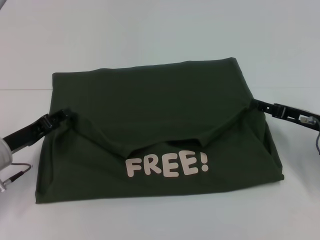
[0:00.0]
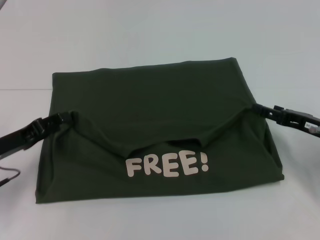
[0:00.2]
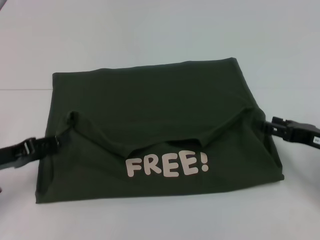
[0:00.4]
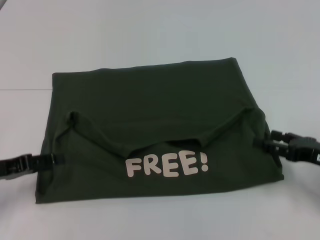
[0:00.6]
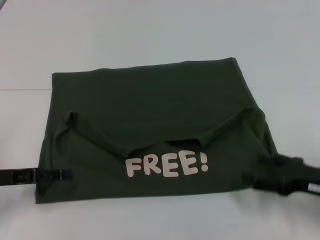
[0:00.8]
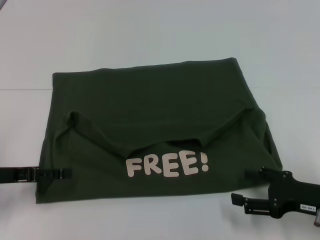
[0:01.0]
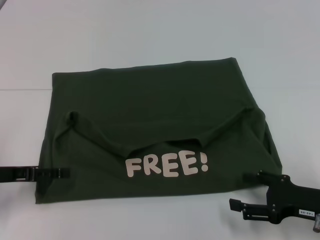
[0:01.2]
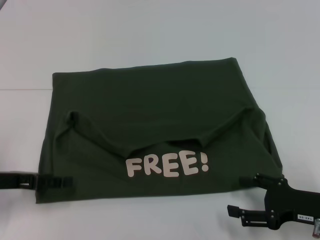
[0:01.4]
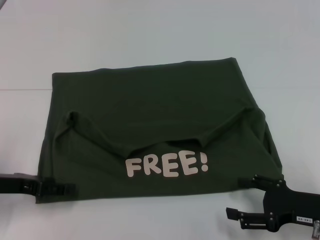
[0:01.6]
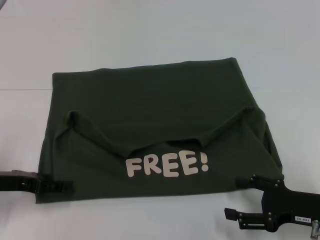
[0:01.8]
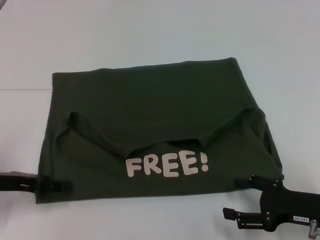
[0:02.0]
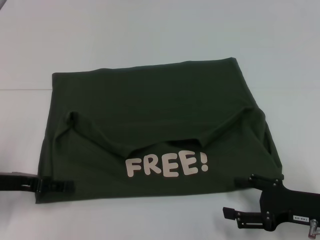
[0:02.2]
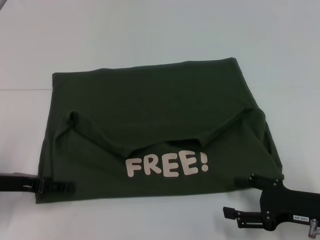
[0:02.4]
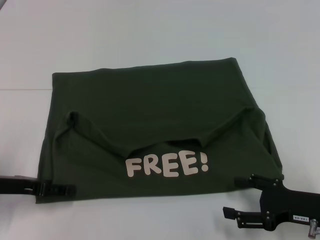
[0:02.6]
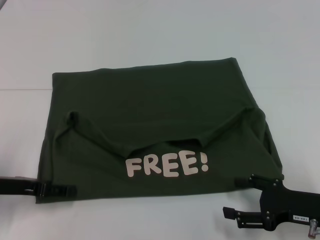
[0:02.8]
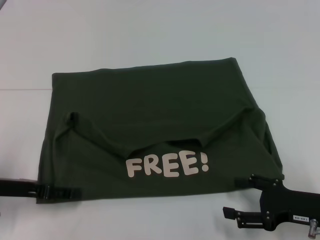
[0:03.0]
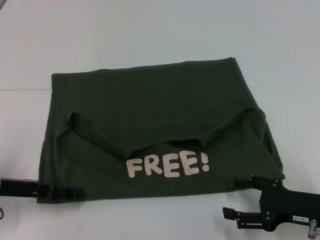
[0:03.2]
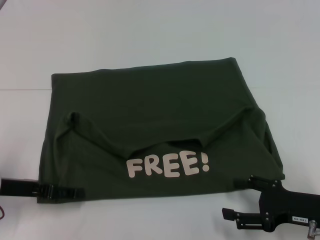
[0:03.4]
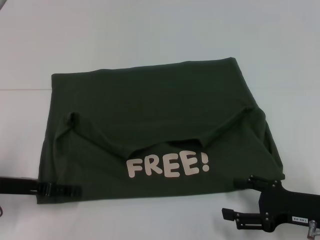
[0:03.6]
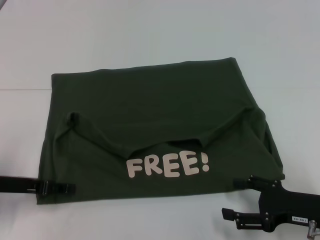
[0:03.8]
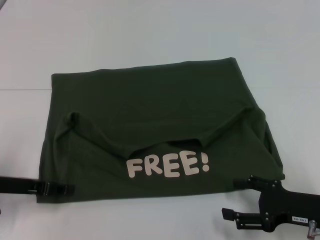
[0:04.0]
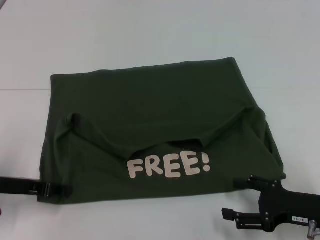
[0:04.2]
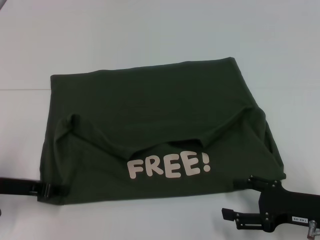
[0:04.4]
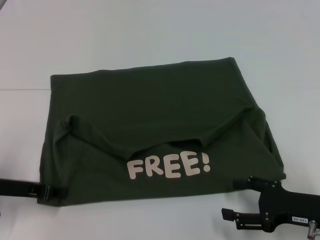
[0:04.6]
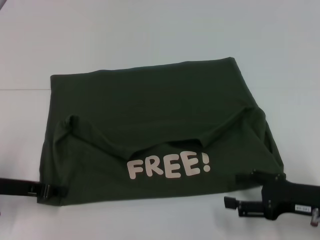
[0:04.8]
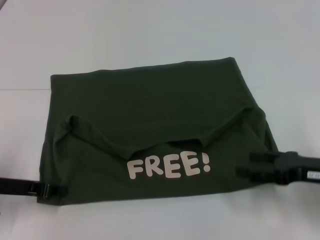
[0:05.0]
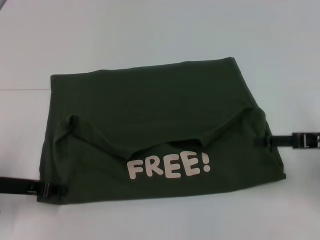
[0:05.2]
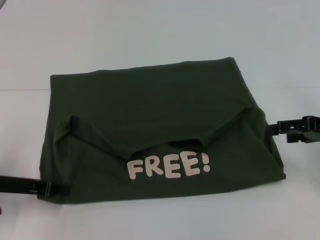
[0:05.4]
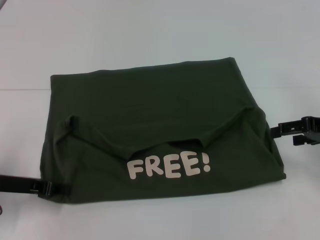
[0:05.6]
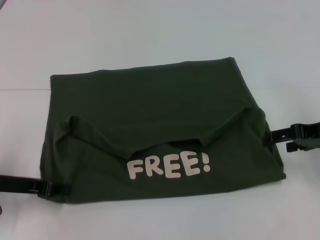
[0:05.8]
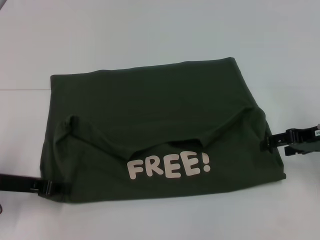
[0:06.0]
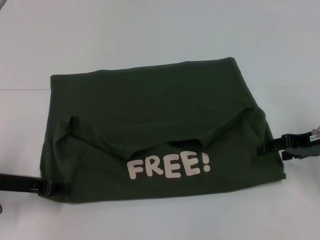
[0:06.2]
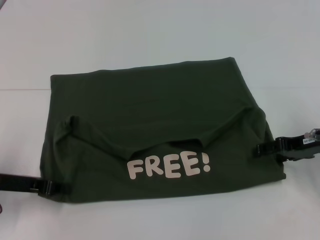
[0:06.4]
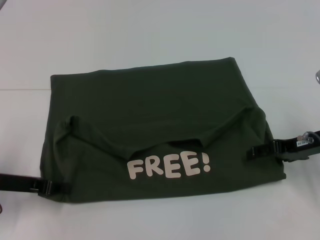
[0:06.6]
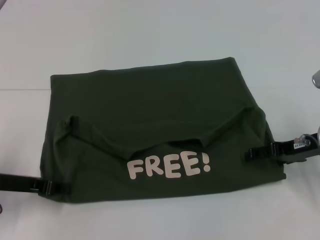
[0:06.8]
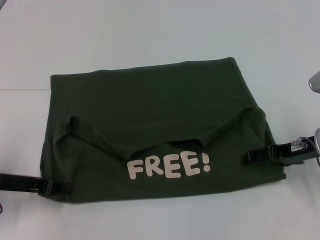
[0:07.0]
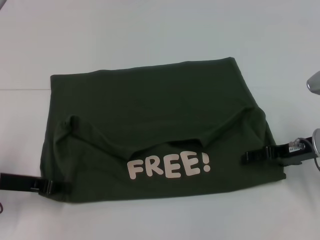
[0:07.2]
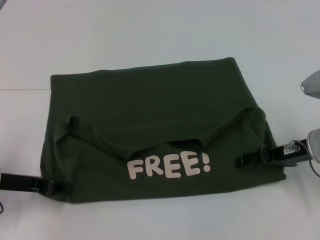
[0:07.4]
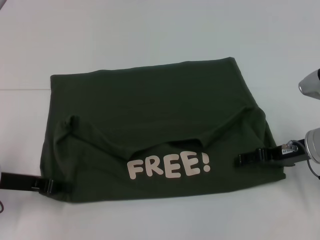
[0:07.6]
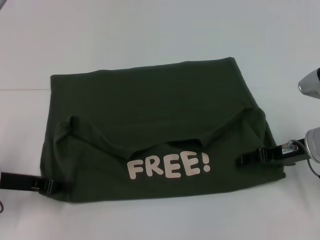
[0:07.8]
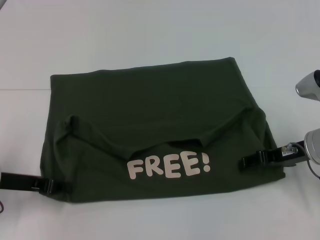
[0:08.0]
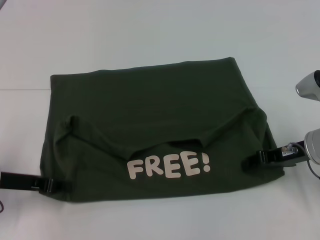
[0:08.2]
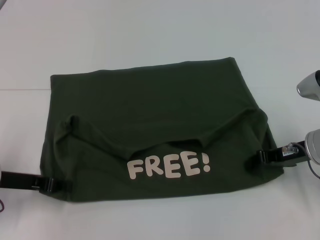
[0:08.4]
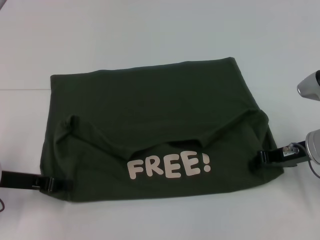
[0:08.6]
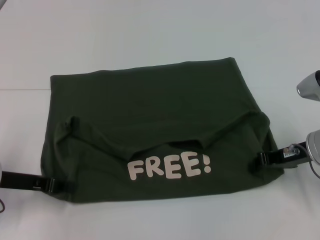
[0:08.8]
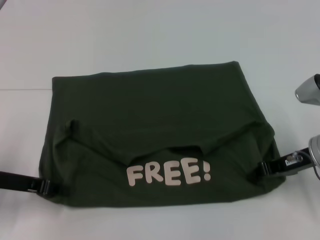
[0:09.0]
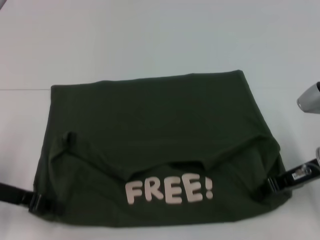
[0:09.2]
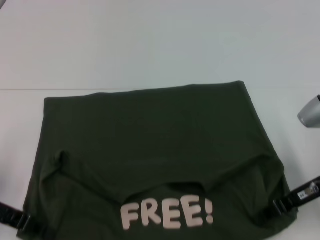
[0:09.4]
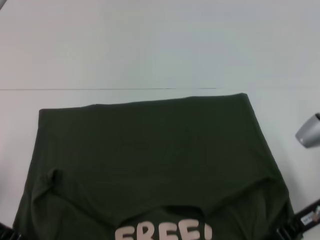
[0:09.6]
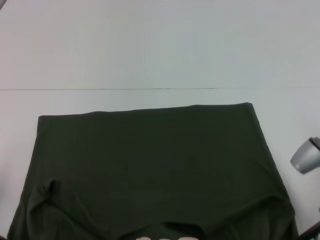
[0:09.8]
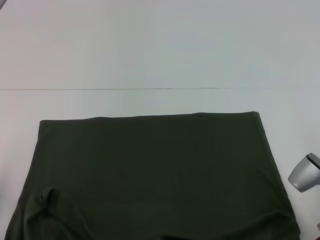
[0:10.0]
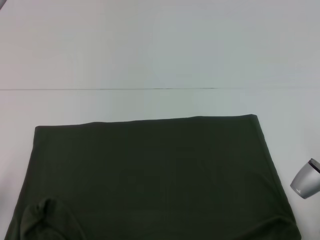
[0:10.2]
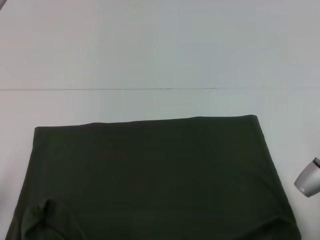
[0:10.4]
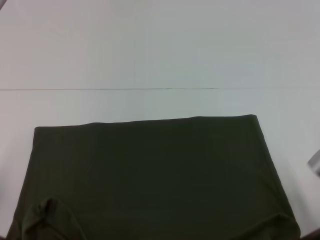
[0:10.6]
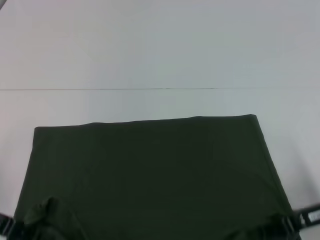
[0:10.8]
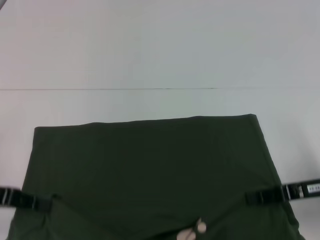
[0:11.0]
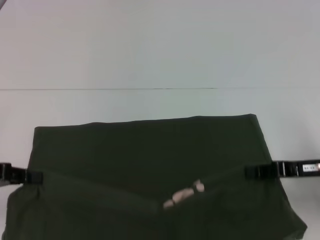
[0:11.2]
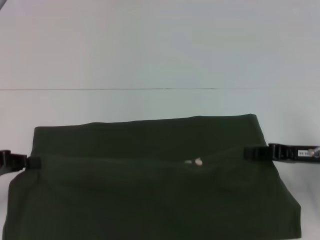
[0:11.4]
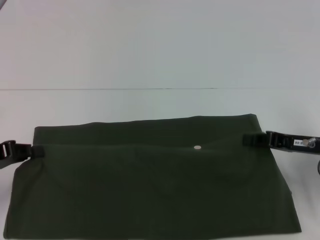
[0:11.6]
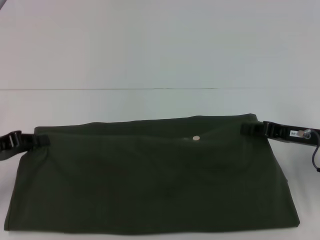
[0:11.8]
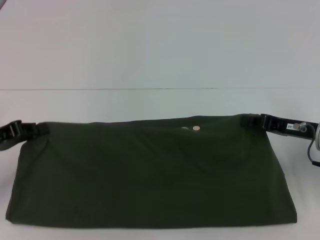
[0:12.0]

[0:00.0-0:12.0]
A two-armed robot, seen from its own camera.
Step, 0:00.8 to 0:09.8: Pull the clothes with your left hand.
Step, 0:00.8 to 0:09.8: Pull the clothes with your right hand.
0:00.0 to 0:01.6: The left gripper opens its fingers; the right gripper heads backward, covering roughly 10 cm.
0:01.6 to 0:03.0: The grippers stay close to where they were, moving slightly.
0:03.0 to 0:04.4: The left gripper closes up.
0:04.4 to 0:06.0: The right gripper shifts some 15 cm forward and upward.
0:06.0 to 0:07.6: The right gripper moves some 5 cm.
0:07.6 to 0:09.0: The right gripper closes its fingers.
0:09.0 to 0:10.4: The right gripper heads backward, covering some 10 cm, while the left gripper goes roughly 5 cm backward.
0:10.4 to 0:12.0: The left gripper goes approximately 5 cm forward. Meanwhile the right gripper moves forward, roughly 10 cm.

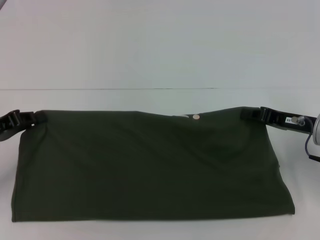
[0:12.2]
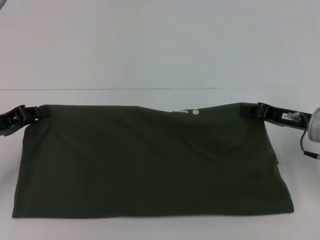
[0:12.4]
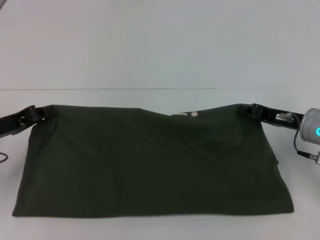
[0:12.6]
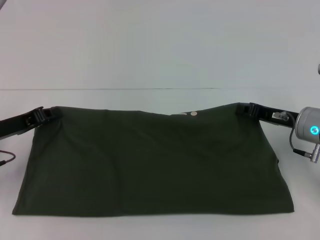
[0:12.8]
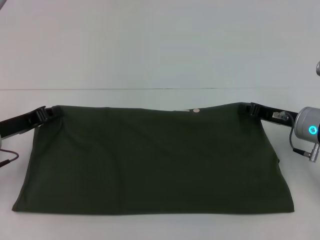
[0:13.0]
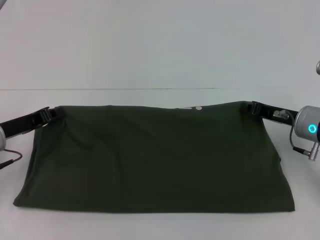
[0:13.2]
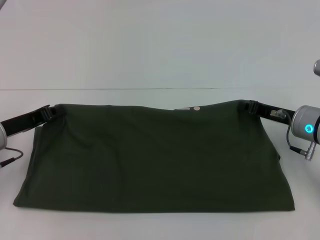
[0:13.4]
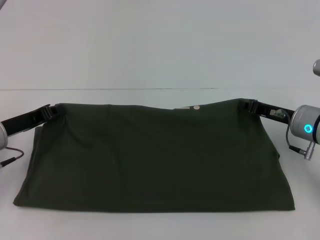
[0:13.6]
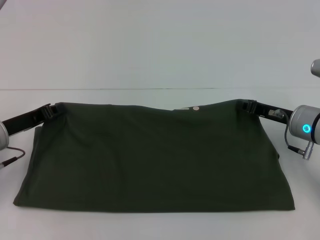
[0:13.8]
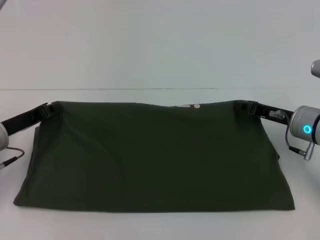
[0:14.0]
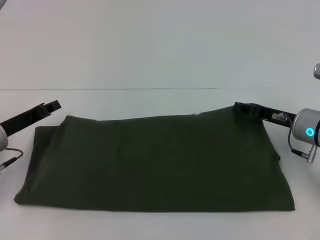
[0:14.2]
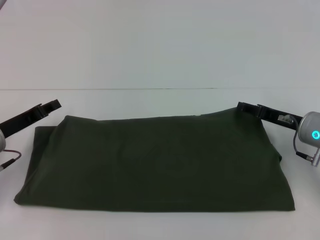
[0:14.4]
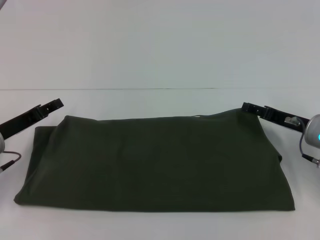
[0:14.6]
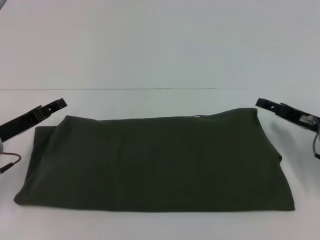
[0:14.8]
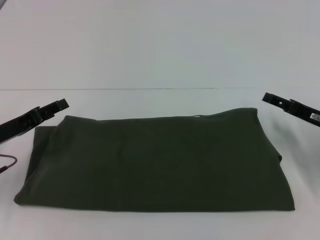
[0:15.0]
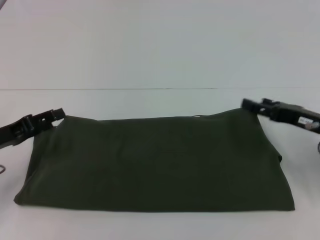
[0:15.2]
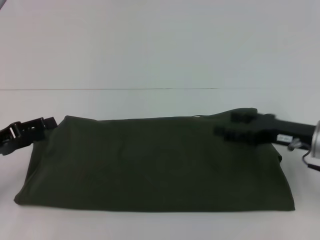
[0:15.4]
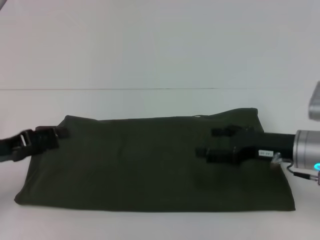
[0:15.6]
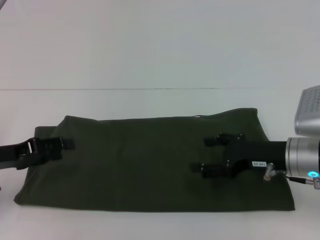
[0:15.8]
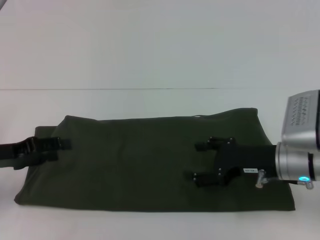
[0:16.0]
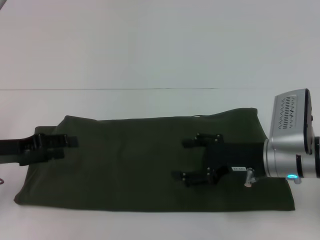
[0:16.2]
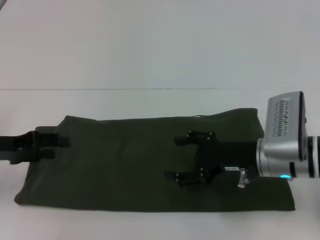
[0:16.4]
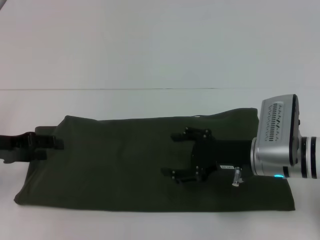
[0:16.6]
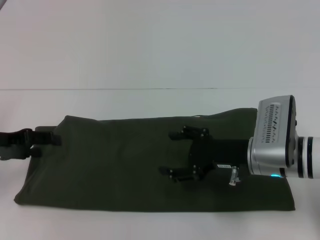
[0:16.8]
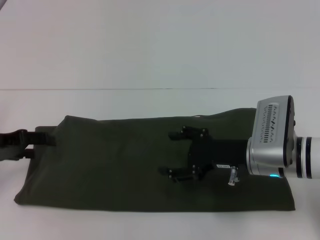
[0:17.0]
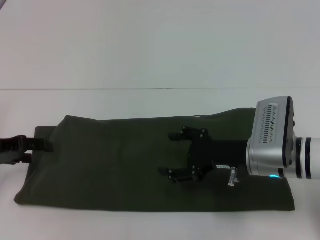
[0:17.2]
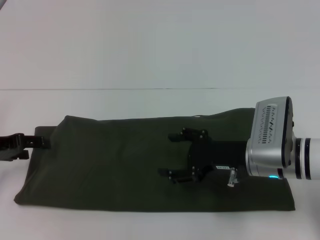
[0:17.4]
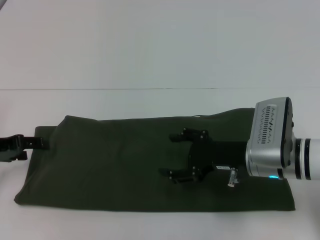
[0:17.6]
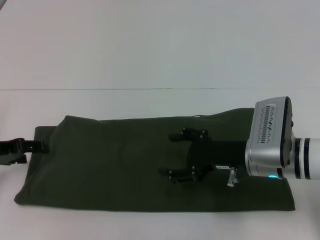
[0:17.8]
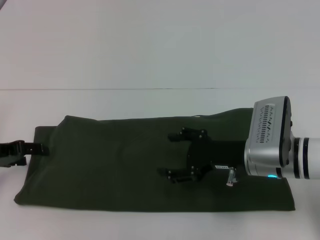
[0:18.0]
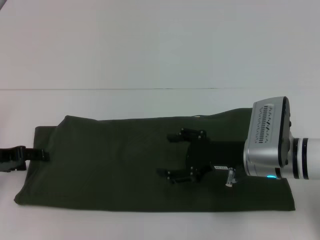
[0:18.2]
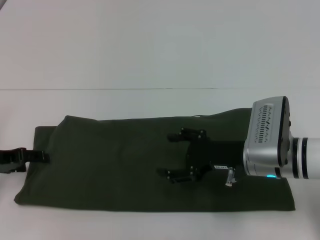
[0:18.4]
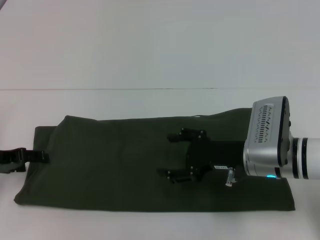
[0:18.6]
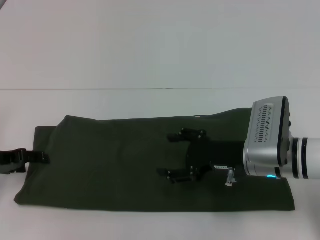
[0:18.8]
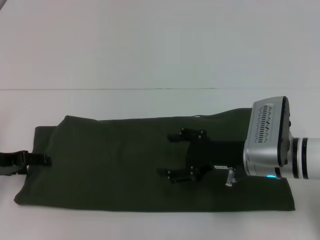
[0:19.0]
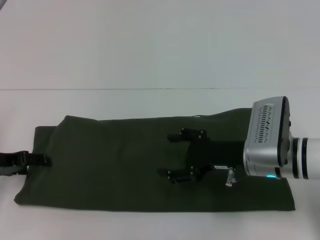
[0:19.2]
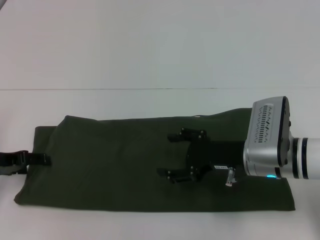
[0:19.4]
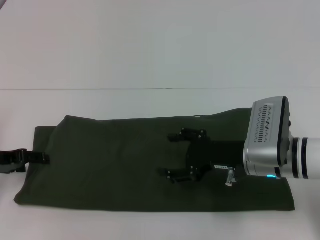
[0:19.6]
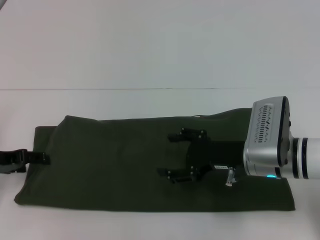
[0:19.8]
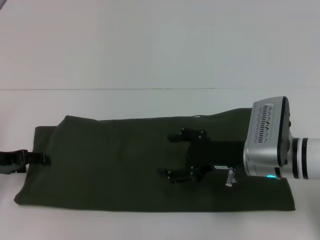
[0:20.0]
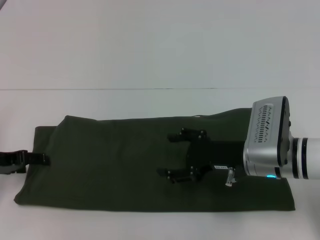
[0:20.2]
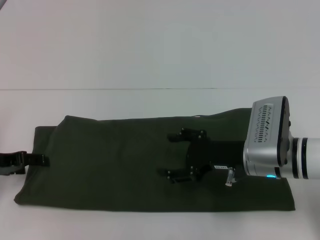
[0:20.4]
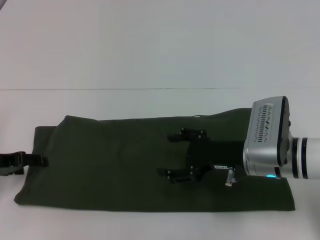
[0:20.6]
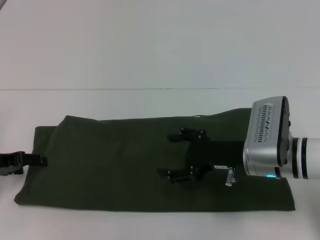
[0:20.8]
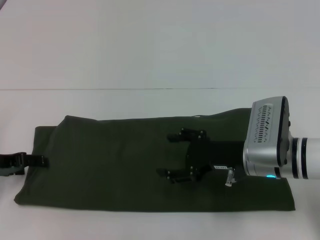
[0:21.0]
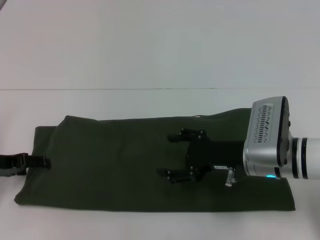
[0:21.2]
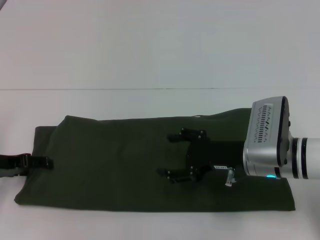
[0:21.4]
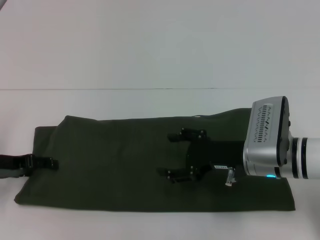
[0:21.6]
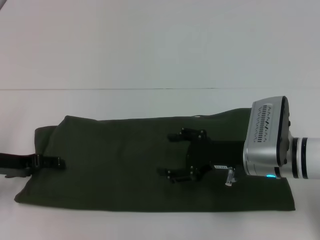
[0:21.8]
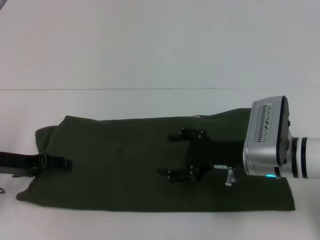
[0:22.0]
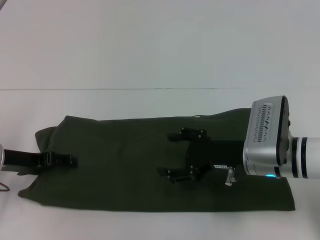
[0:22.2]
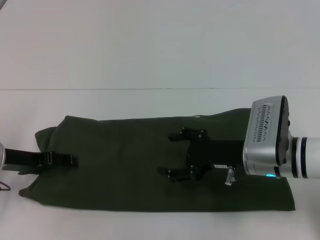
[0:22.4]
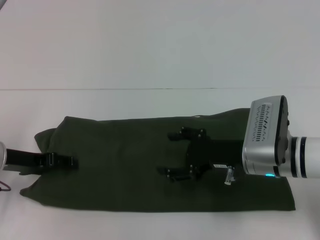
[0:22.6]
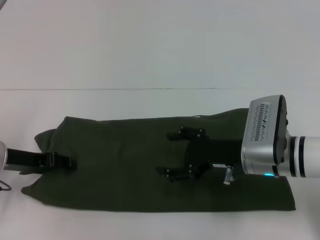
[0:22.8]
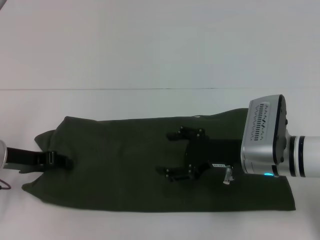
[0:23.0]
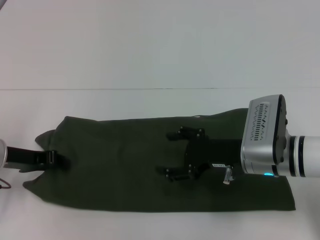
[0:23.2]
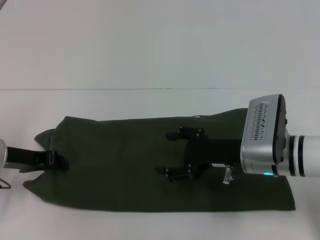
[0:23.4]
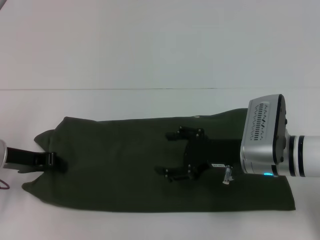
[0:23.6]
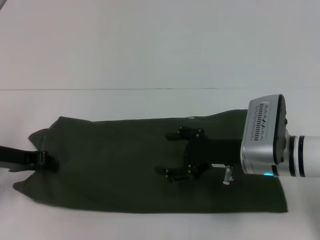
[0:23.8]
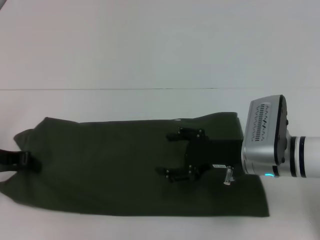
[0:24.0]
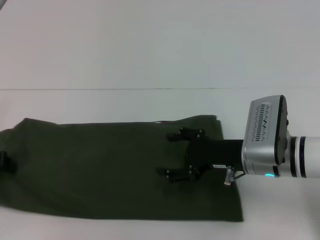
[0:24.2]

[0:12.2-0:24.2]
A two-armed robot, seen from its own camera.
Step, 0:12.2 to 0:14.6: Fold the clothes with your right hand.
0:12.2 to 0:13.8: The left gripper moves some 5 cm.
0:13.8 to 0:15.2: The left gripper opens. The right gripper shifts by approximately 5 cm, and opens.
0:15.2 to 0:16.6: The right gripper shifts about 10 cm to the left.
0:16.6 to 0:18.2: The grippers move only a little.
0:18.2 to 0:21.2: The two grippers keep their place.
0:21.2 to 0:22.6: The grippers stay close to where they were, moving slightly.
0:22.6 to 0:24.2: The left gripper moves to the left, approximately 5 cm, and closes.
